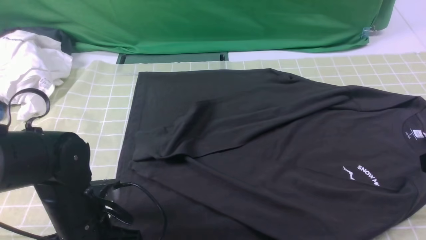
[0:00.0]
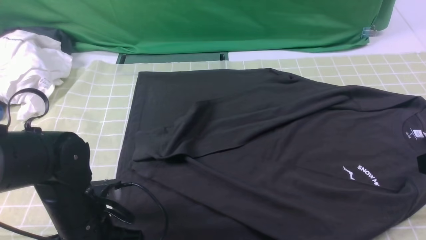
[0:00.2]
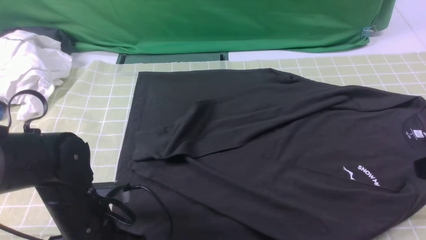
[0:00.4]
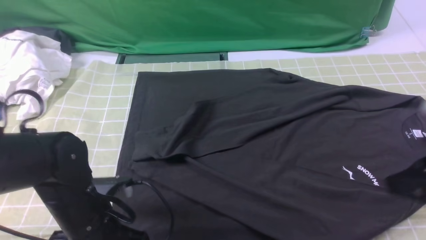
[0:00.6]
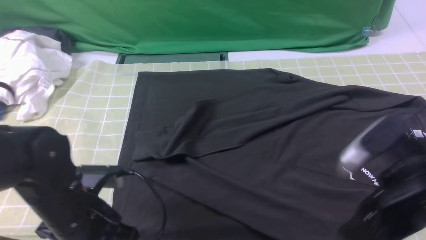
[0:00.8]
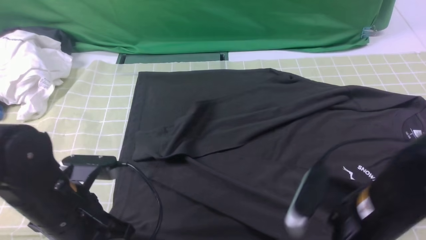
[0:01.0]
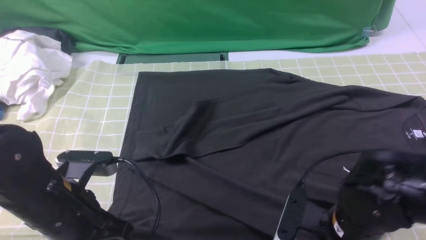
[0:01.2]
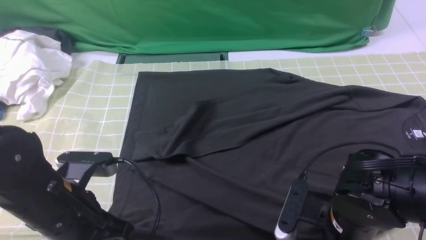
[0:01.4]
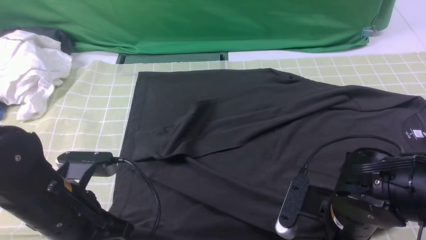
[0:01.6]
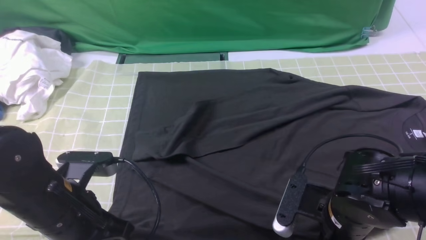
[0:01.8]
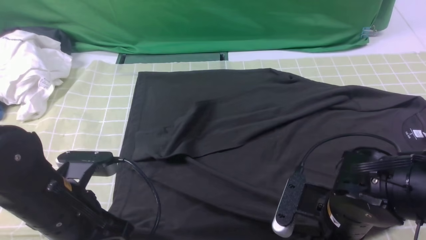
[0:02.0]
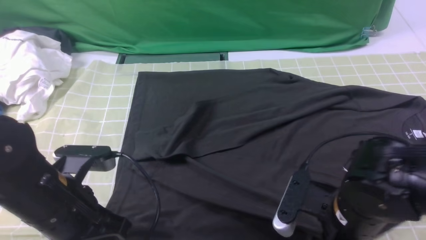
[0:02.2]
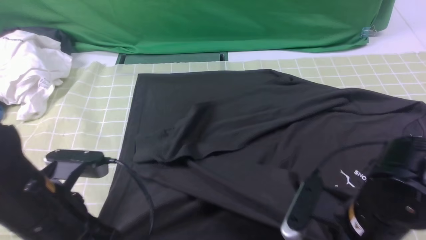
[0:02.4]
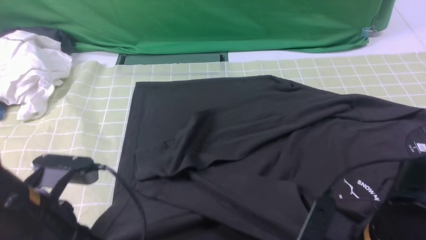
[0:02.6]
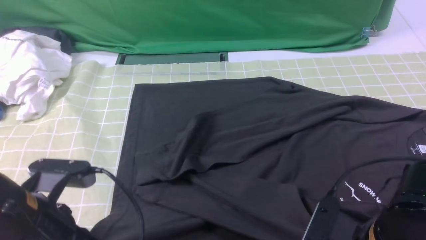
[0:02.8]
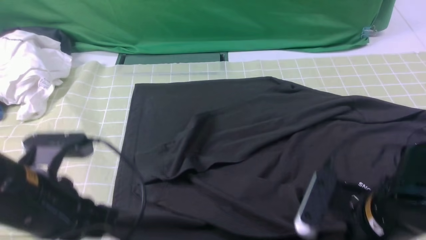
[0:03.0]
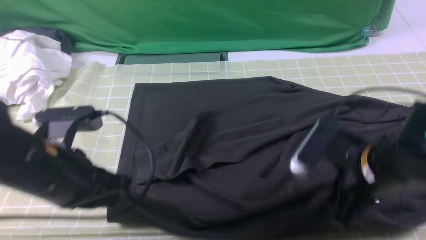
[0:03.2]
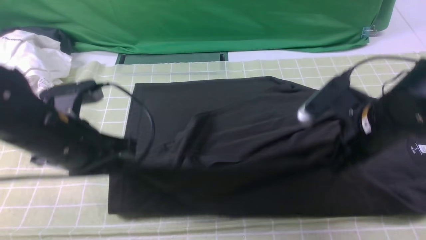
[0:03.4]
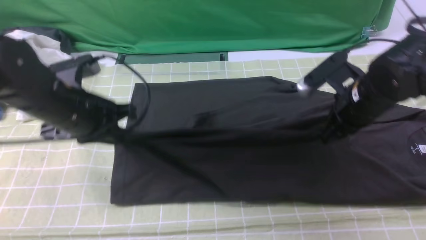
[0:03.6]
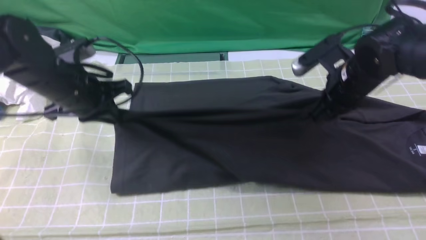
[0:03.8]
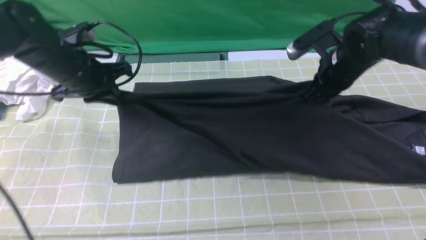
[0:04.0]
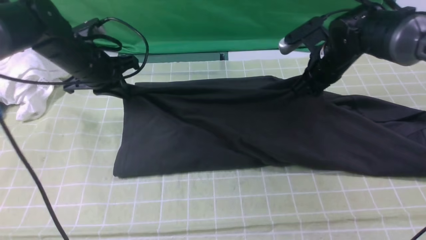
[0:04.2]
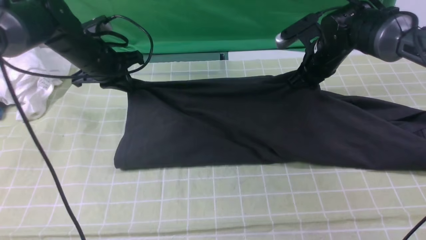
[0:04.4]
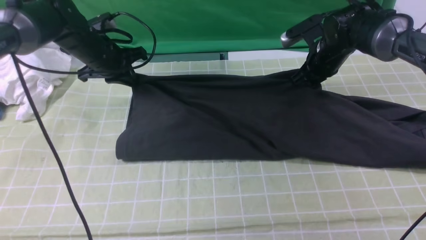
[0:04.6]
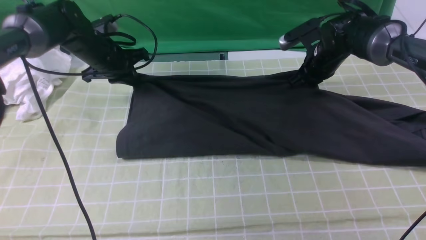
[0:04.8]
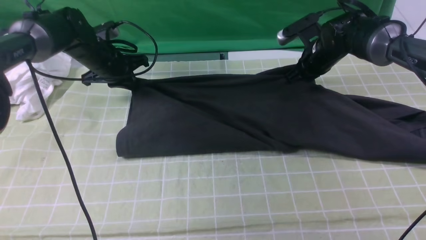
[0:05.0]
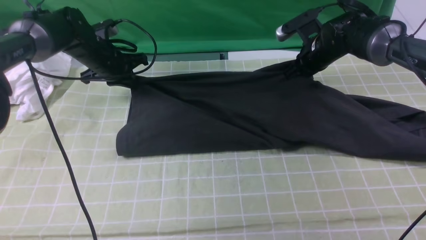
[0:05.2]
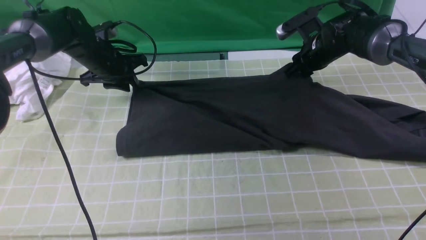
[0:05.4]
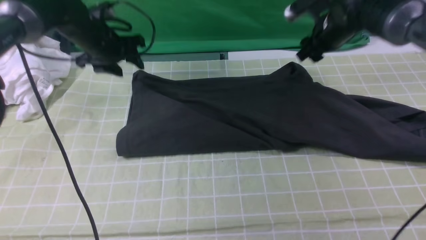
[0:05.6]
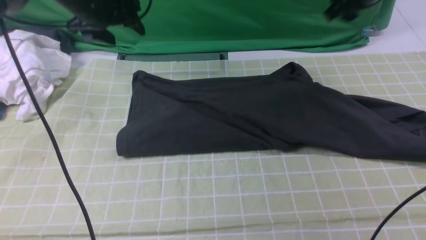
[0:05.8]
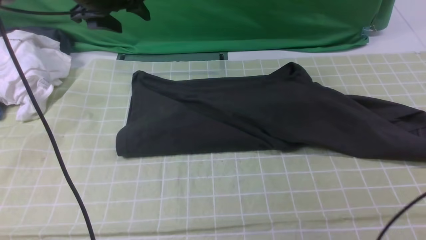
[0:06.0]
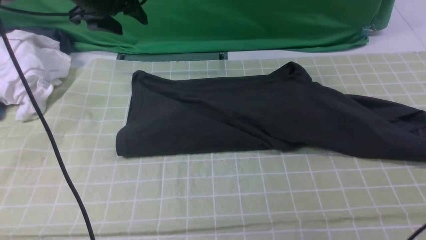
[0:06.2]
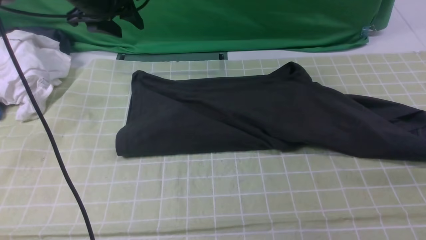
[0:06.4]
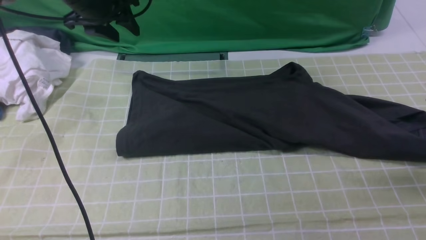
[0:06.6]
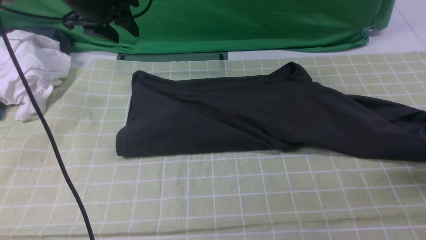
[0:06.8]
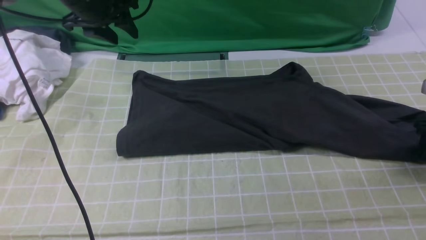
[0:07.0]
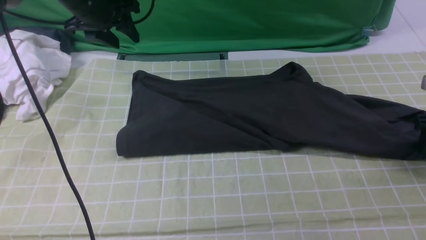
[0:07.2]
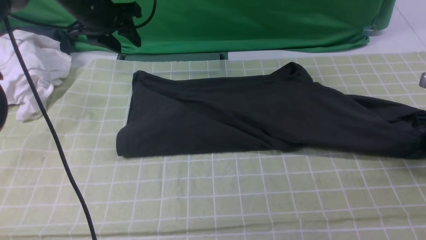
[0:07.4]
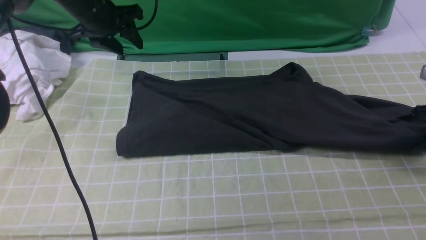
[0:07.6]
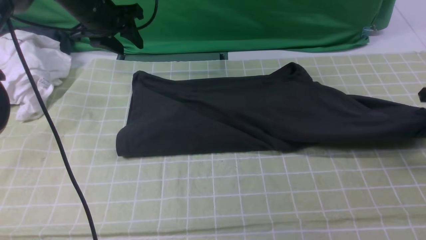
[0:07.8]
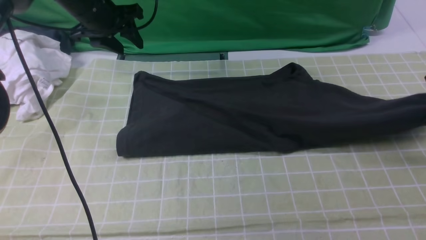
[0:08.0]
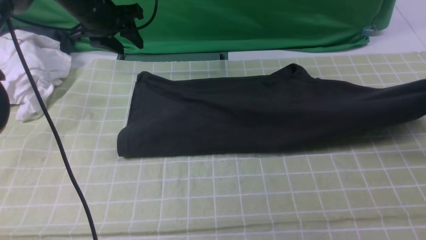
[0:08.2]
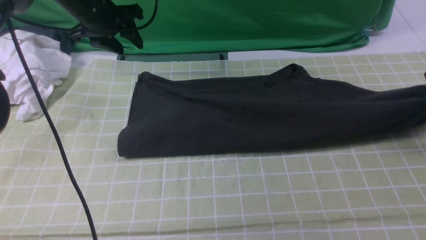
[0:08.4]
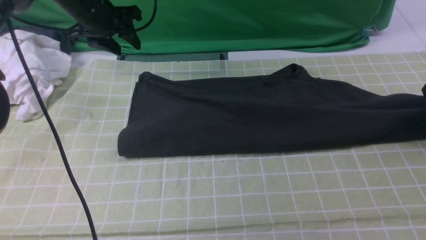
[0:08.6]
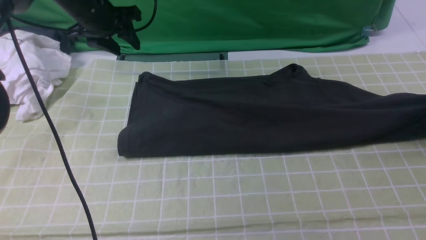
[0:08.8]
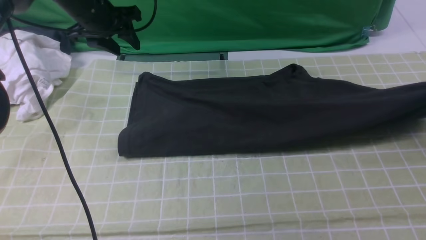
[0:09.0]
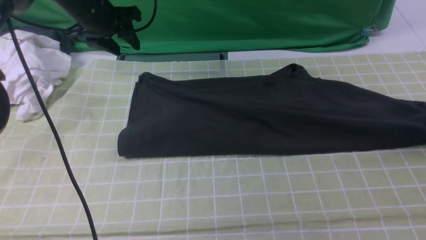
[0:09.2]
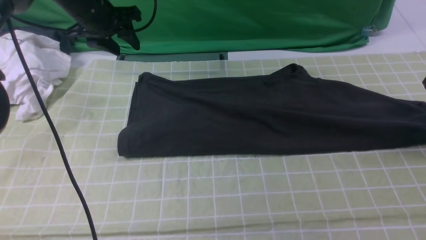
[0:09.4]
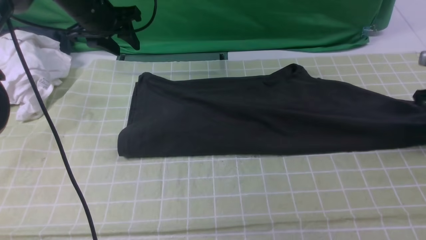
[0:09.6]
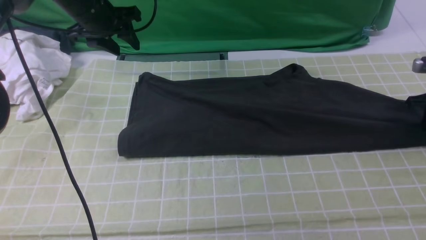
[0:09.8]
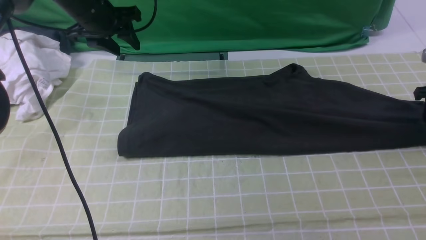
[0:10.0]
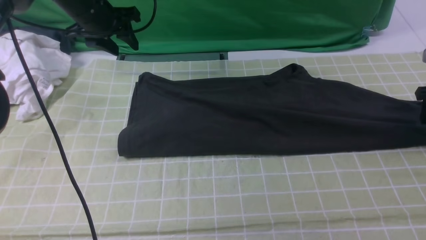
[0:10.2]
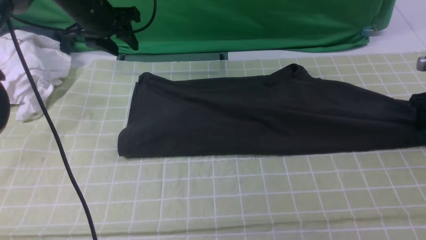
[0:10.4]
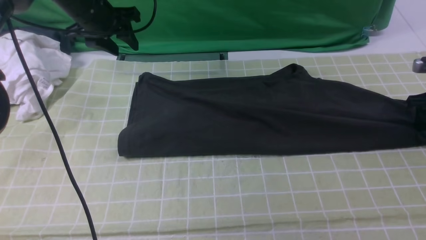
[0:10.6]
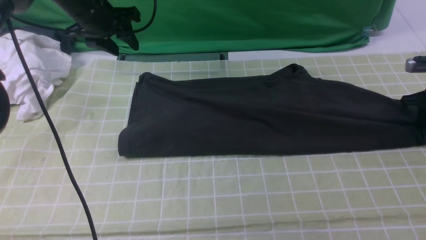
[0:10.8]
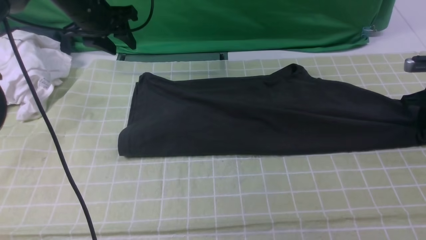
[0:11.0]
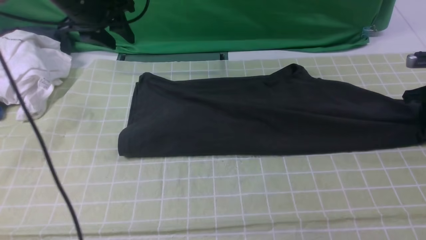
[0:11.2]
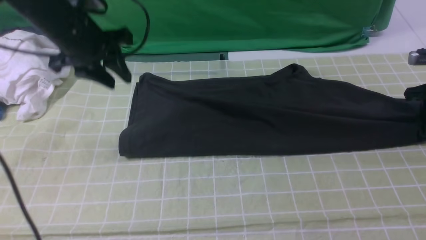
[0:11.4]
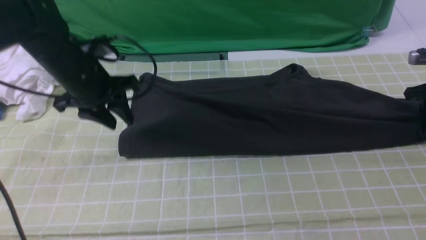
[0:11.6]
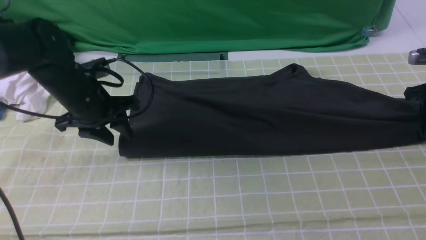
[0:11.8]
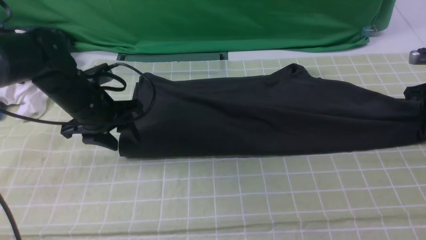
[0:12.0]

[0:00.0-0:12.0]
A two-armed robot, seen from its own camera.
Step, 0:00.0 to 0:01.8: use both arms simultaneously to clamp the lower edge of the clothing fabric.
Step, 0:02.0 to 0:05.4: use both arms to drag the lower edge of the fabric forward and fold it over the upper edge.
Step, 0:05.8 to 0:10.8: use the right arm to clamp the right edge of the fabric.
0:00.0 to 0:01.6: The right gripper travels downward and to the left by roughly 20 cm. The left gripper travels upward by roughly 5 cm, and closes its fingers.
0:01.6 to 0:03.0: The right gripper heads upward, covering about 5 cm, and closes.
0:03.0 to 0:04.4: Both grippers travel together forward, approximately 30 cm.
0:04.4 to 0:06.0: The left gripper heads upward, covering about 10 cm, and opens, while the right gripper is displaced upward and to the right by some 20 cm, and opens its fingers.
0:06.0 to 0:07.6: The right gripper is displaced downward and to the right by some 25 cm, and opens, then closes once more.
0:07.6 to 0:09.0: The right gripper shifts by about 5 cm, and opens its fingers.
0:09.0 to 0:10.4: The right gripper shifts some 10 cm downward, and closes, then opens again.
0:10.4 to 0:12.0: The right gripper closes its fingers; the left gripper moves backward and downward, roughly 15 cm.

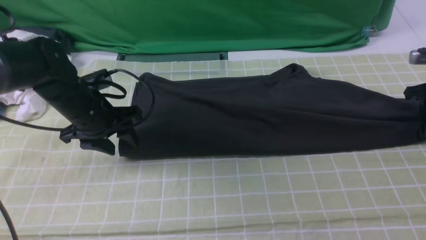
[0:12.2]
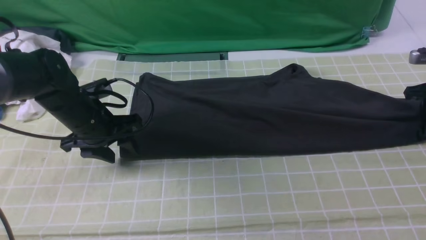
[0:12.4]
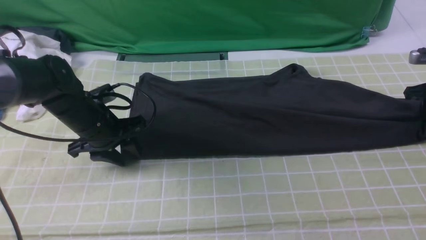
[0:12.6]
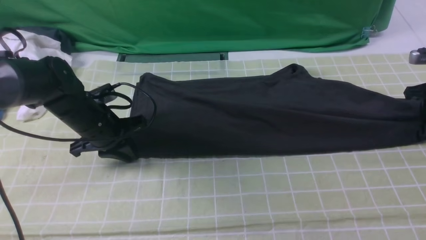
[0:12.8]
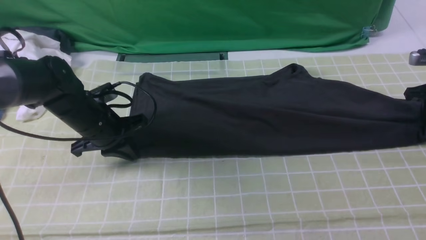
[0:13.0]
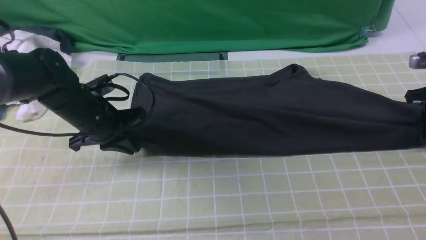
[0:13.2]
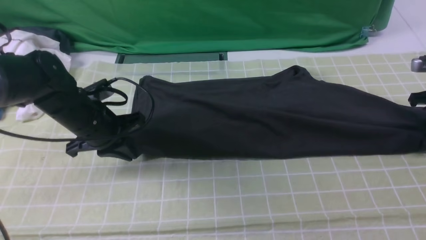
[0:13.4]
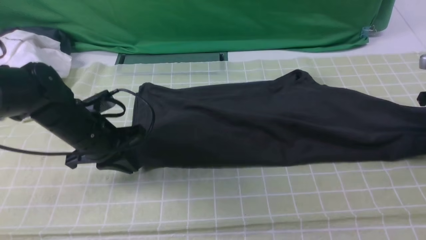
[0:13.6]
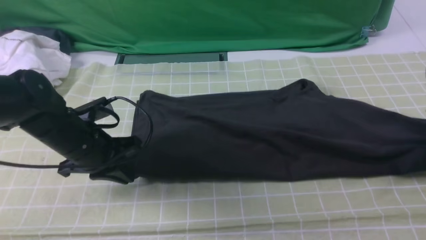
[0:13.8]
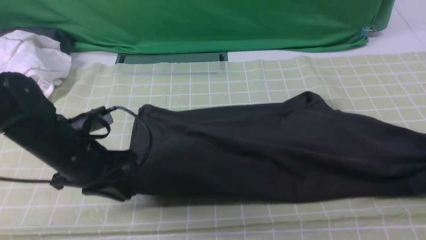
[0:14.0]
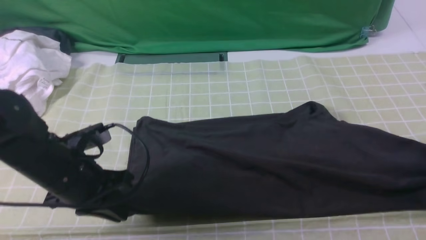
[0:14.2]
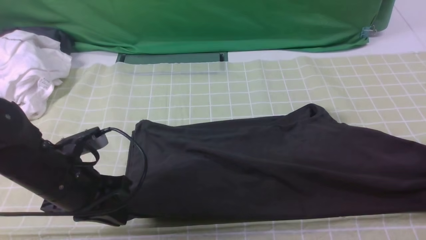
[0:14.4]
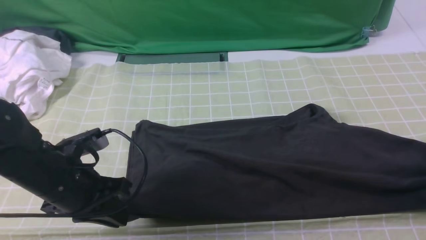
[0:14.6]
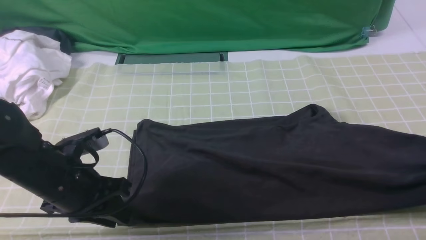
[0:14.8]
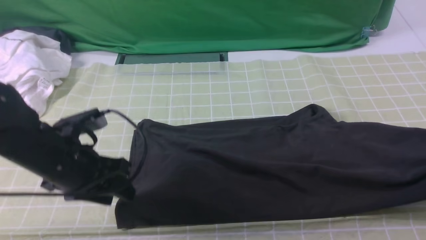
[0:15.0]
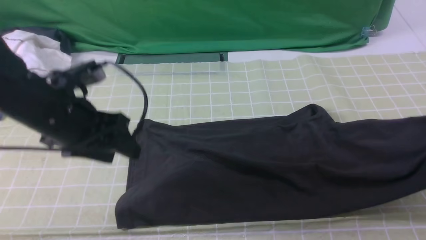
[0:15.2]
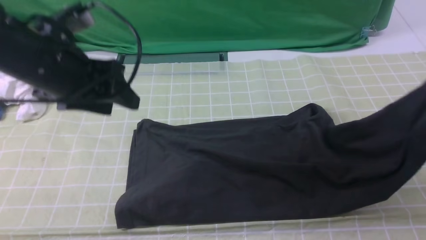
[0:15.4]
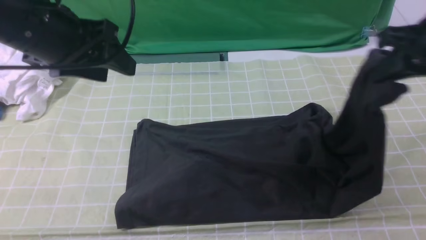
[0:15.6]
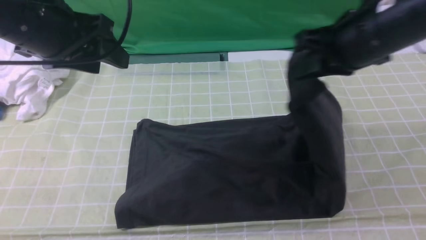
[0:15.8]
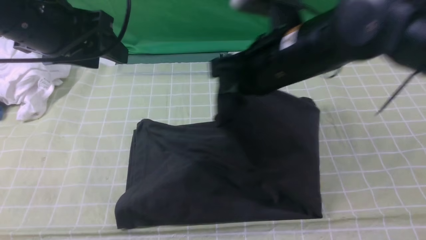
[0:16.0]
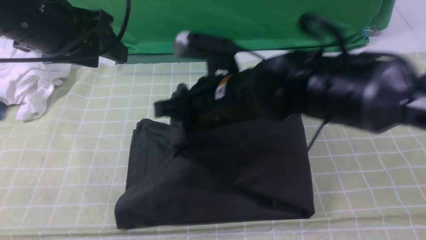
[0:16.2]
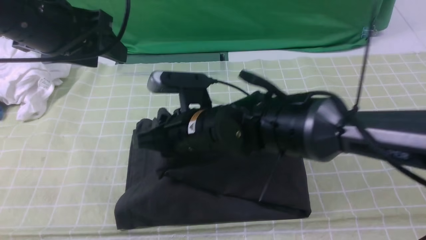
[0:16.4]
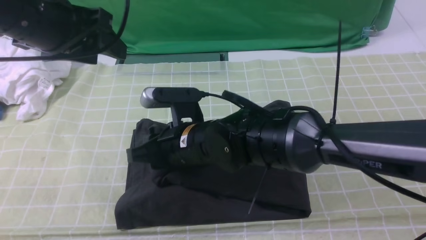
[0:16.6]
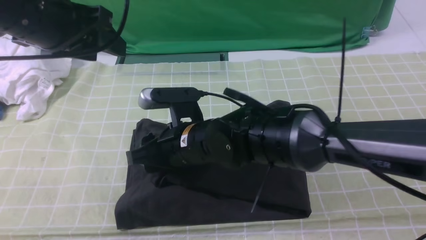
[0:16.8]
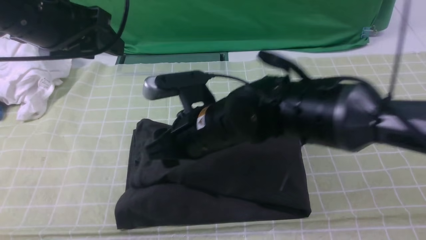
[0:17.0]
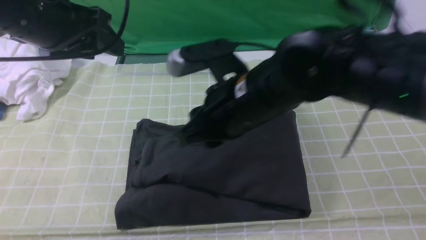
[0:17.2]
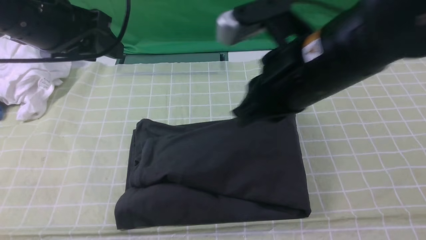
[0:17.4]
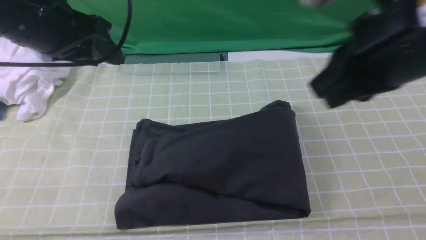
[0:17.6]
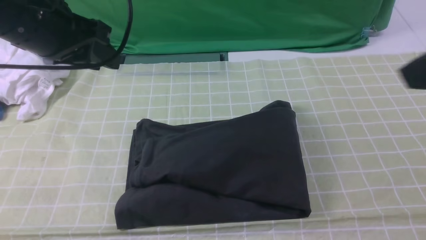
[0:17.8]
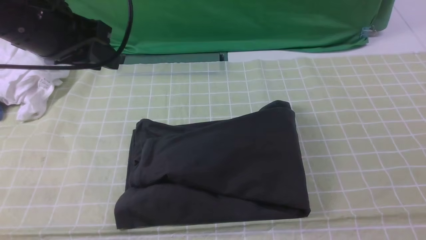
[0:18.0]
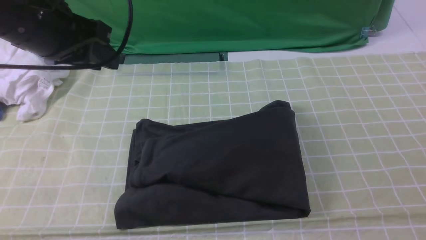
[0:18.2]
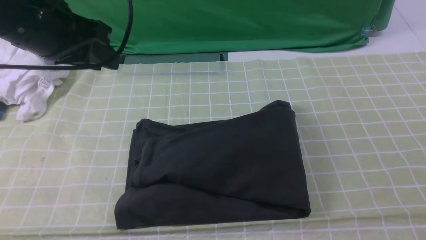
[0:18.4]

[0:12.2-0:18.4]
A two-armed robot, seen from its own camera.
Step, 0:12.2 to 0:17.2: use the right arm to drag the right edge of the fabric to the left and folds it over the left edge.
0:12.2 to 0:13.8: The grippers both shift backward by some 5 cm. The left gripper closes.
0:13.8 to 0:15.4: The left gripper is displaced upward by some 15 cm, and opens; the right gripper goes about 20 cm upward, to the left and backward.
0:15.4 to 0:16.8: The left gripper changes place by about 5 cm. The right gripper moves to the left, approximately 35 cm, and opens.
0:16.8 to 0:18.4: The left gripper closes its fingers. Meanwhile the right gripper moves to the right, backward and upward, about 40 cm, and closes its fingers.
